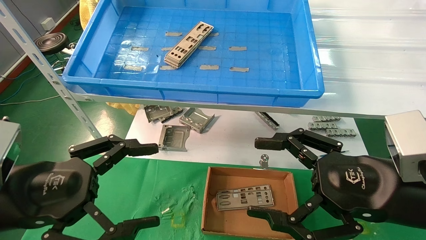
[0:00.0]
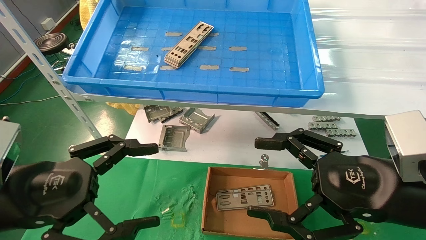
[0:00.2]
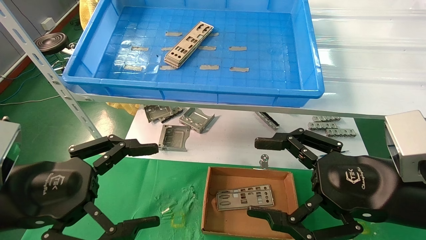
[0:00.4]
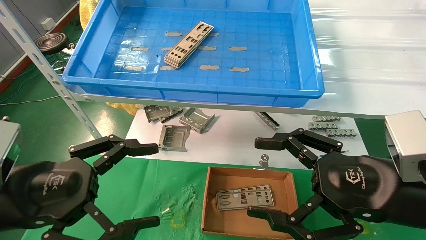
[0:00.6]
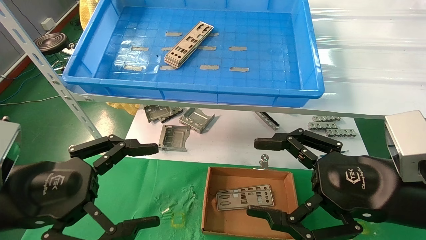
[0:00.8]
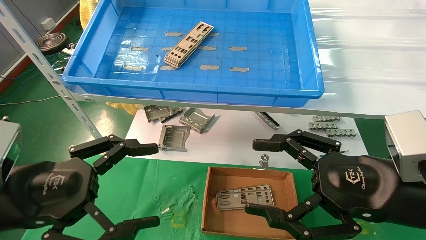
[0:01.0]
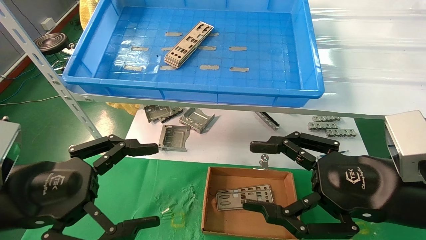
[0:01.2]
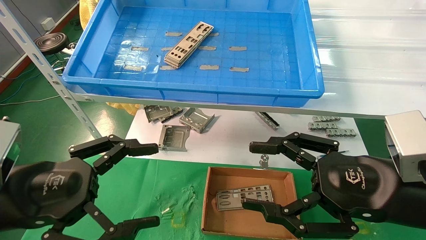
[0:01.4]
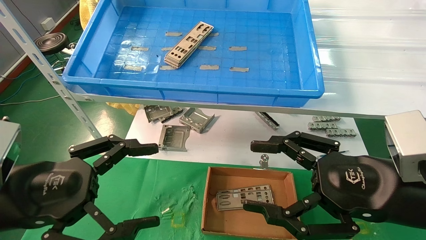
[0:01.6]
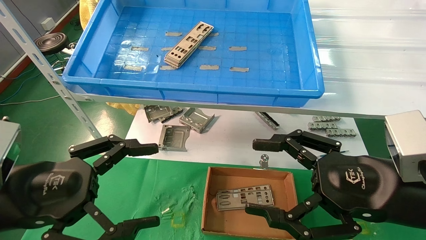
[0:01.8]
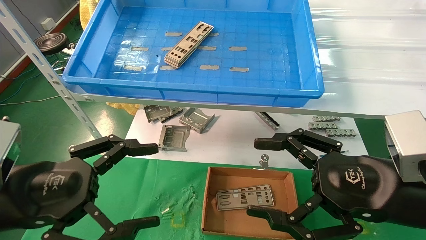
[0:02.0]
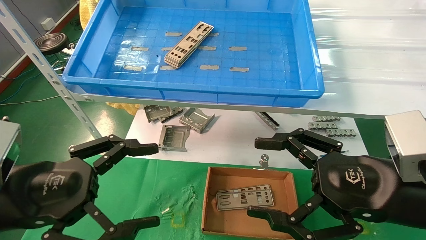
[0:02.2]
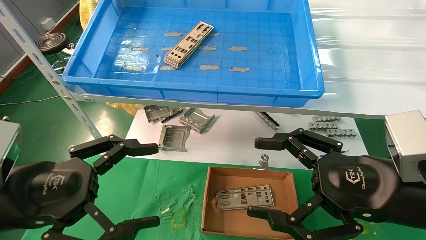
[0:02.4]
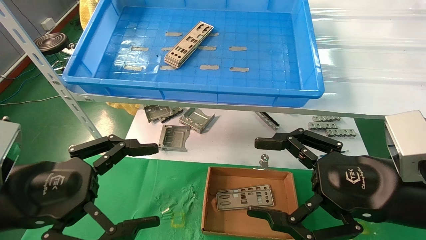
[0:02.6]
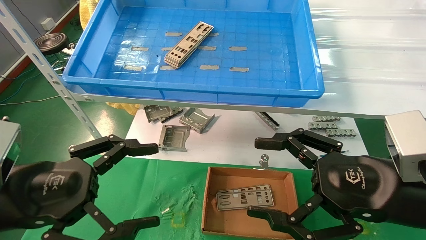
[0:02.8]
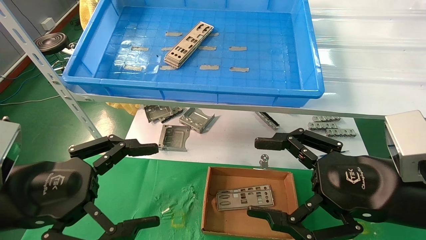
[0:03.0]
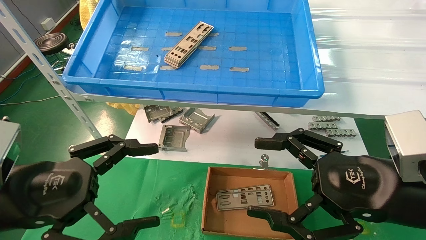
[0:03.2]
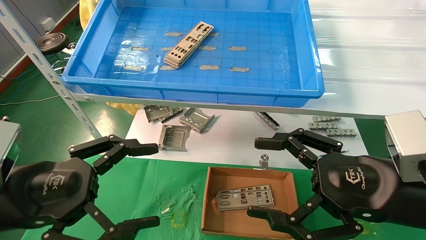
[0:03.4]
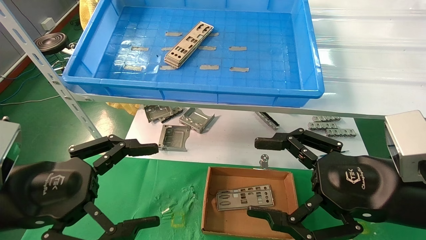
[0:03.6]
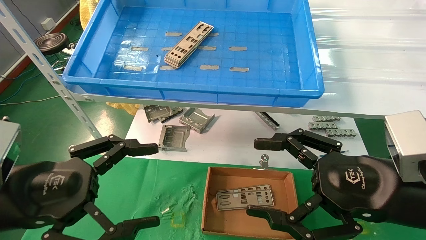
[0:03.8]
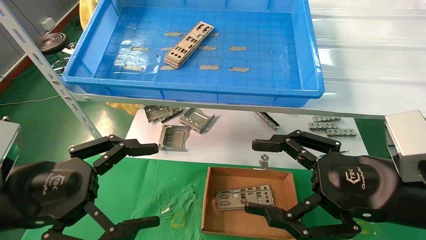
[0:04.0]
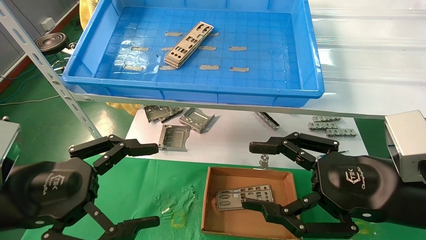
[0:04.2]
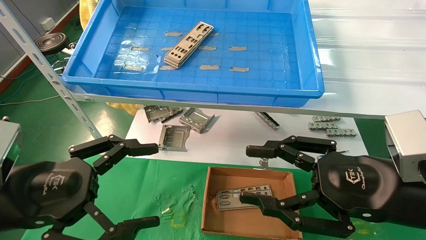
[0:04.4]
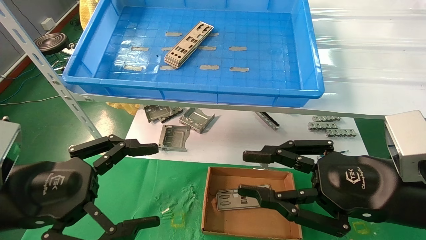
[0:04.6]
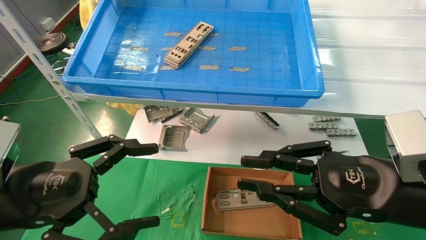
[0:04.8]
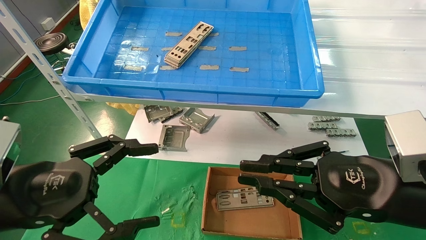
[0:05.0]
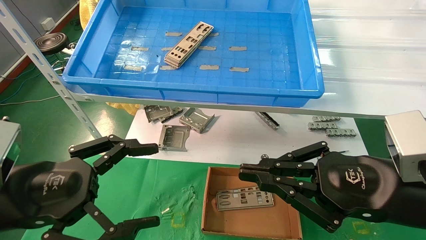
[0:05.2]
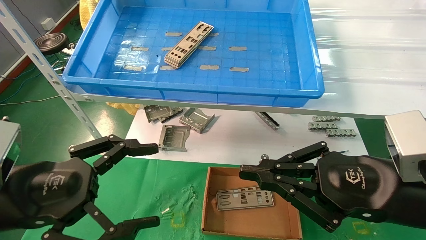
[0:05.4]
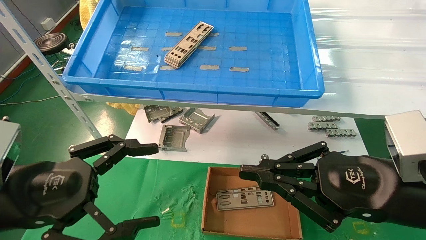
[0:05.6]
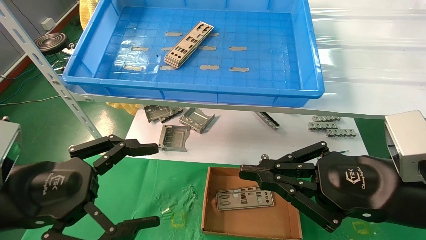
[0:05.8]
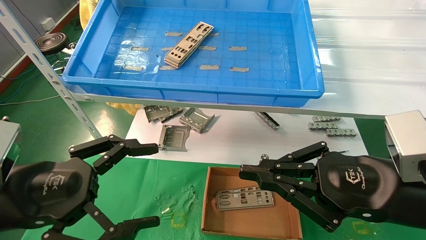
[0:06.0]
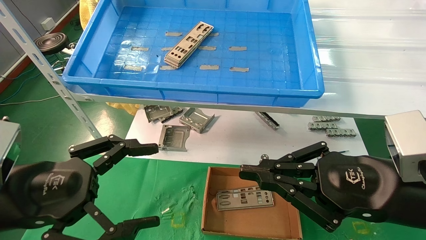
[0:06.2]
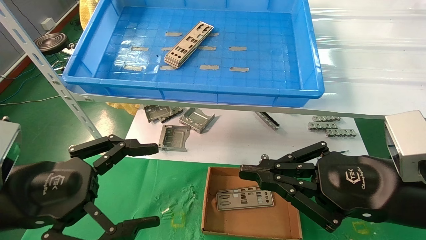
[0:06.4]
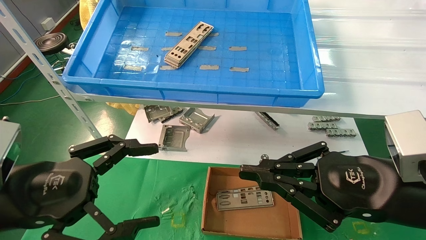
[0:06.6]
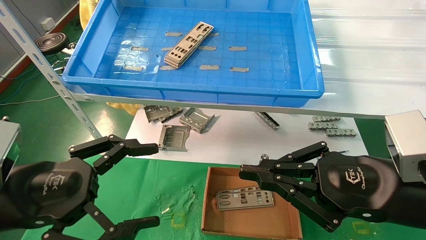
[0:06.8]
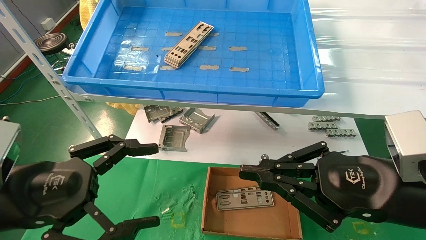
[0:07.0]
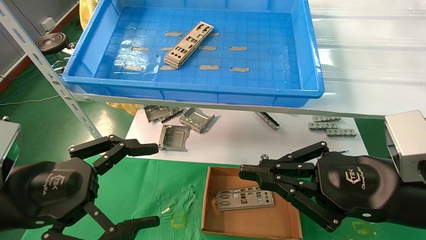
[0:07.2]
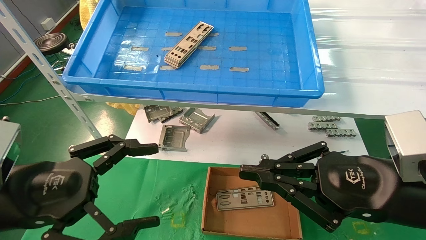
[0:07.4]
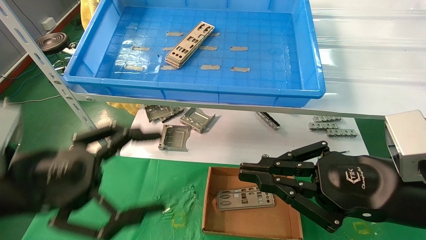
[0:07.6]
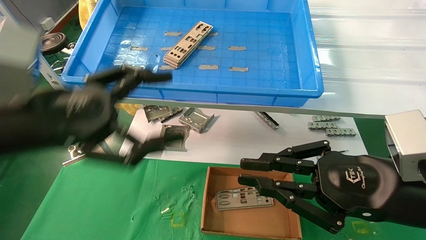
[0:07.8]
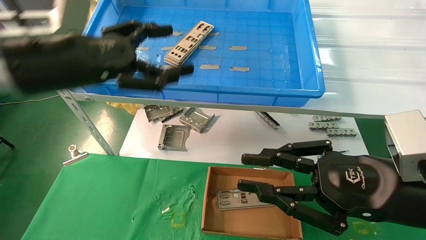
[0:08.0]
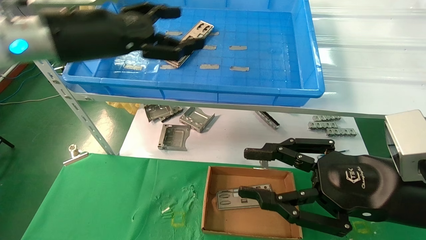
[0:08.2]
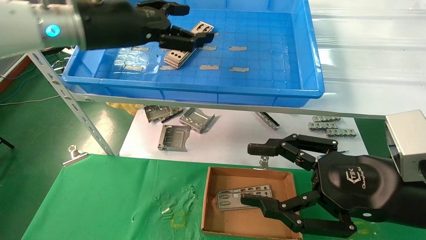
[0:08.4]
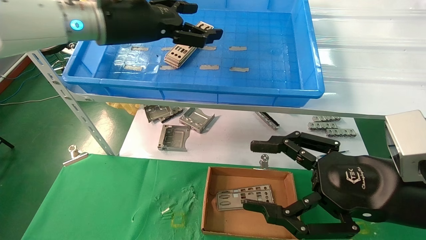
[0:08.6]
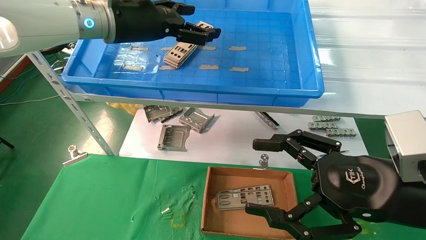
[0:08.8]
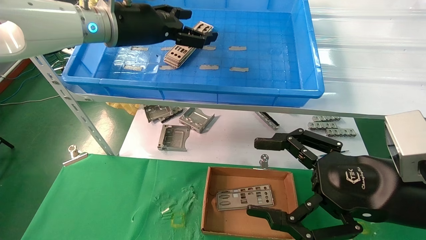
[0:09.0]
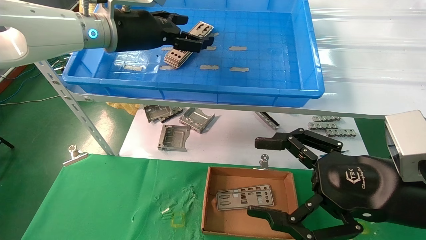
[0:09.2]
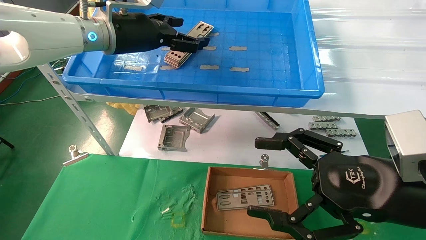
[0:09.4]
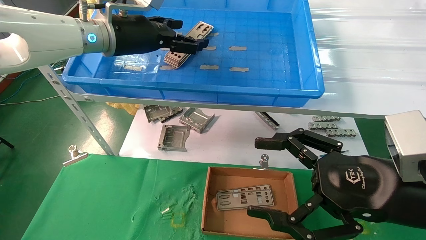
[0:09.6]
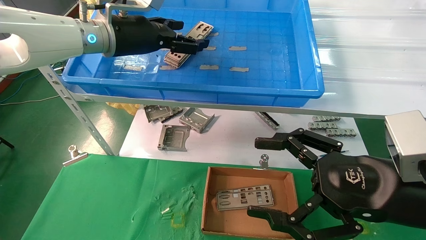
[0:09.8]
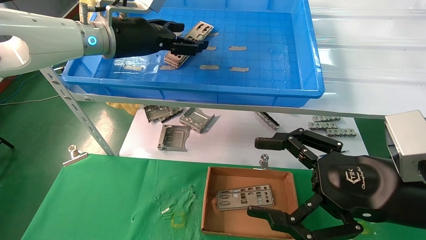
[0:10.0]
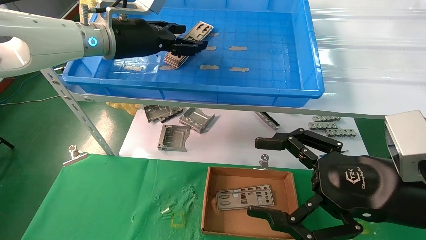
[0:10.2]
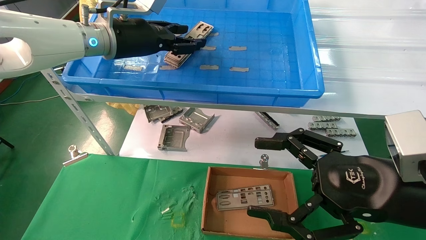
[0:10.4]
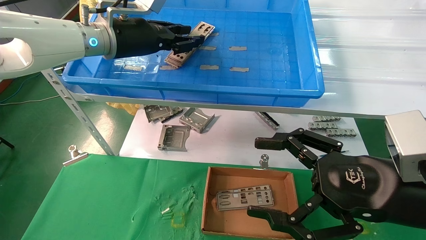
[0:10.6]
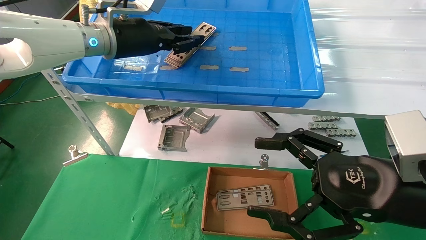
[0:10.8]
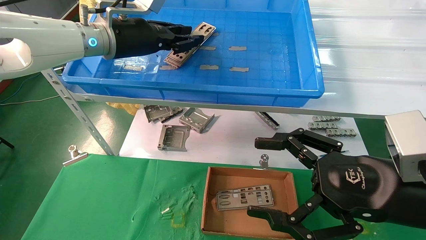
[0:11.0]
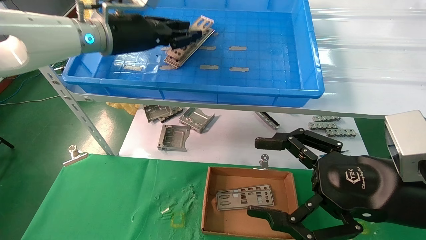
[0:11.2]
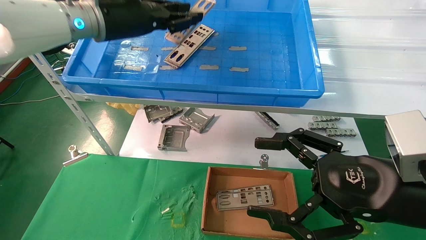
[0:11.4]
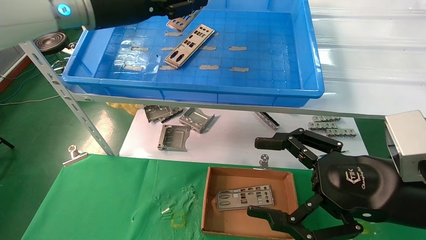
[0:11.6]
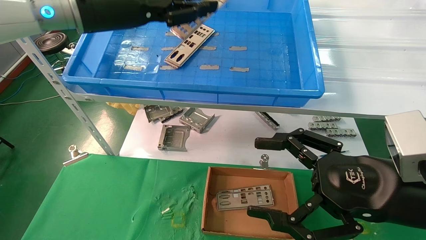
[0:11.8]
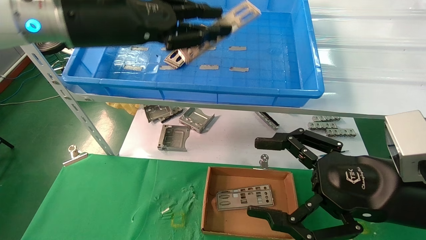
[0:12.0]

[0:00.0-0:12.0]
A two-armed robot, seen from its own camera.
Task of the whole recording: pick up the parts on the tray and put them in the cardboard box.
Step, 0:08.0 to 0:10.8: Pick up the IO bracket from the container box.
0:00.0 to 0:04.4: Both grippers stay about where they are.
0:04.4 to 0:06.0: The right gripper closes.
0:06.0 to 0:07.6: The grippers stay close to where they were, moving slightly.
0:07.6 to 0:09.0: The right gripper opens up. The left gripper heads forward, upward and to the right, covering roughly 25 cm.
0:09.0 to 0:10.4: The left gripper closes up.
0:10.4 to 0:12.0: The left gripper heads backward, covering some 10 cm, and closes.

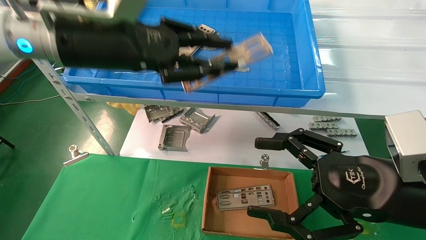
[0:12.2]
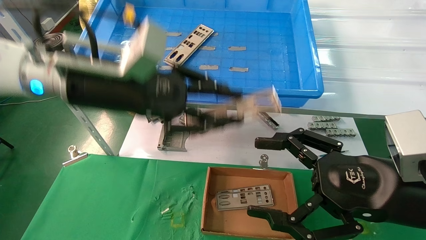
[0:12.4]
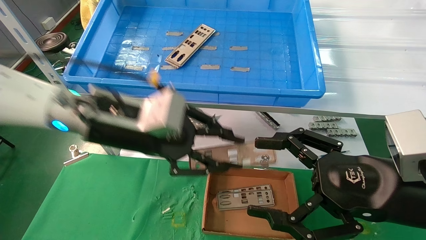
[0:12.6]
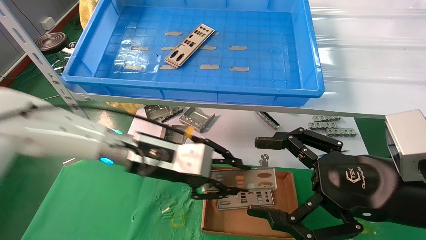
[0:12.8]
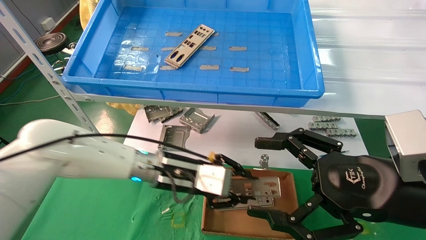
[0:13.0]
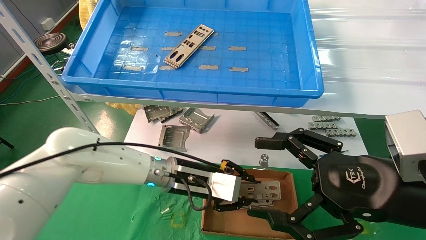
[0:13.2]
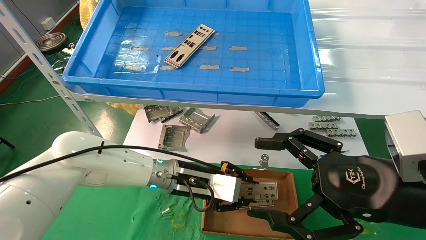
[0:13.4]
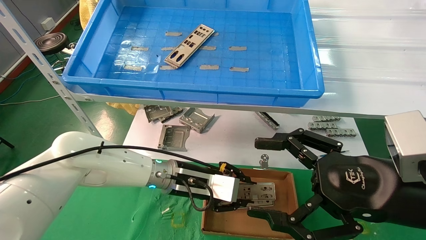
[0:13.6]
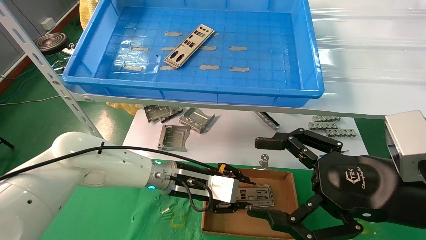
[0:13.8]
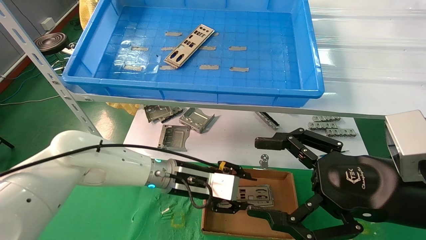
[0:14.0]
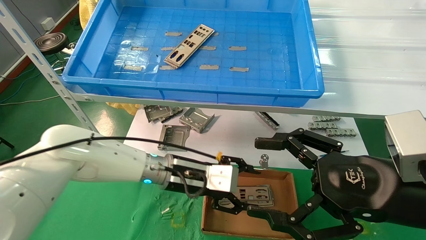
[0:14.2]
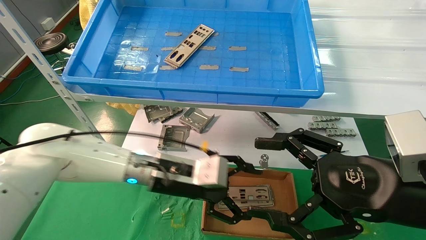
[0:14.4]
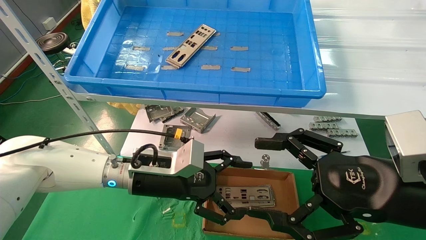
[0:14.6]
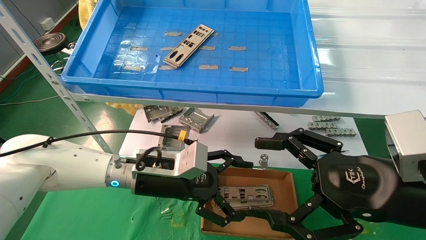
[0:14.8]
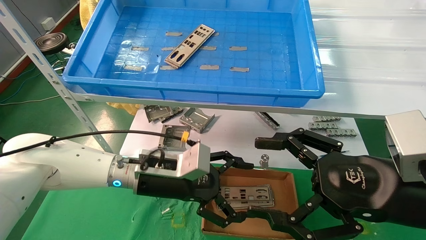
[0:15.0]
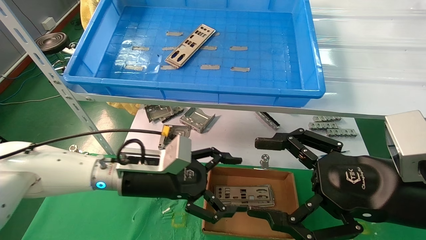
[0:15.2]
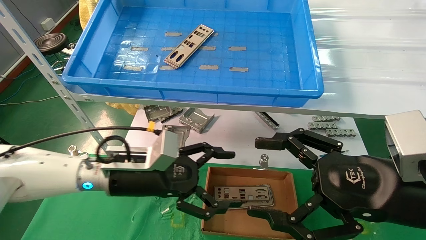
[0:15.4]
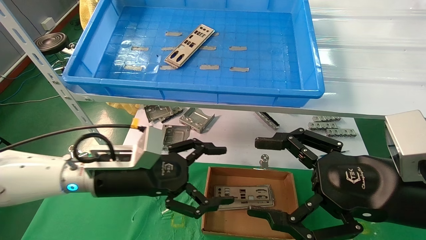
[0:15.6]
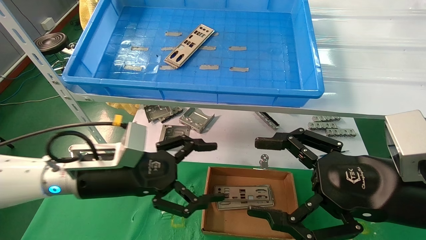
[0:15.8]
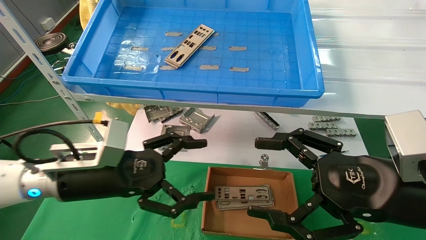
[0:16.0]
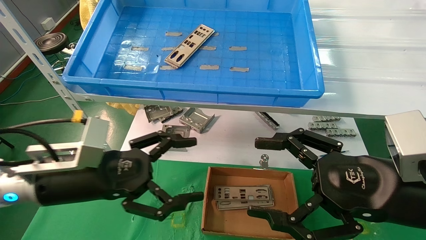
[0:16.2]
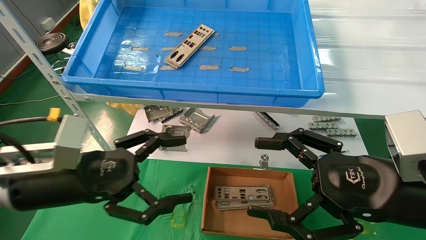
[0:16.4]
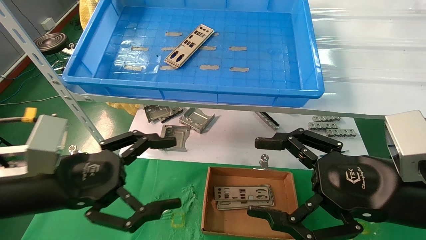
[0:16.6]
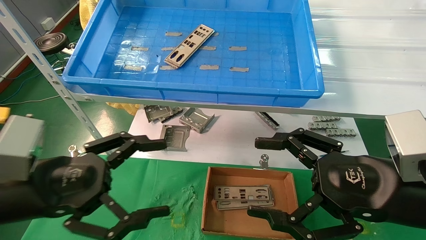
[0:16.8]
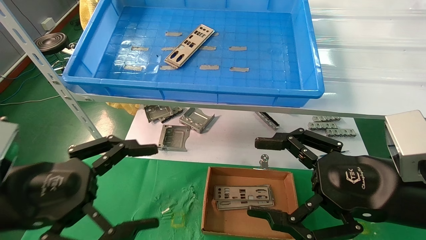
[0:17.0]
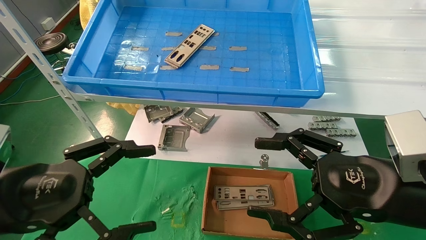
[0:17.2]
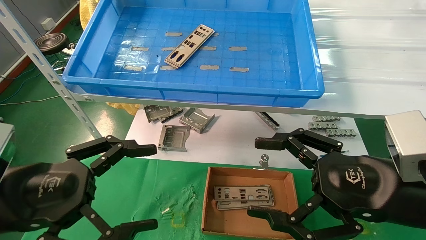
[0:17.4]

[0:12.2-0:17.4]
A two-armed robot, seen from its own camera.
Task of the whole recording: pick up the parts on the tray and put them in the cardboard box.
Step, 0:12.2 to 0:14.0: Place the IO bracket into the ingredient slot.
0:12.2 to 0:14.0: The left gripper moves downward and to the right, approximately 25 cm.
0:14.0 to 0:15.6: The left gripper moves to the left and backward, roughly 10 cm, and opens its fingers.
0:15.6 to 0:17.4: The left gripper moves backward and to the left, approximately 15 cm.
